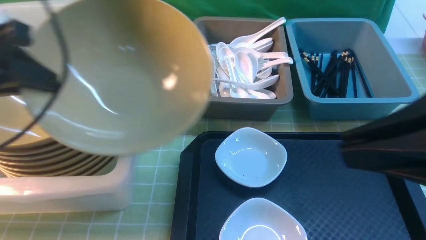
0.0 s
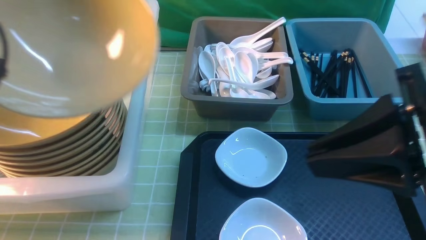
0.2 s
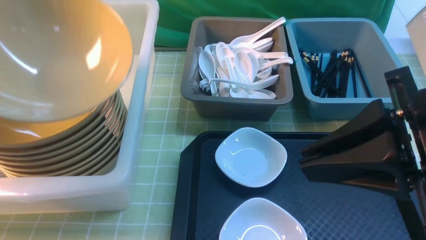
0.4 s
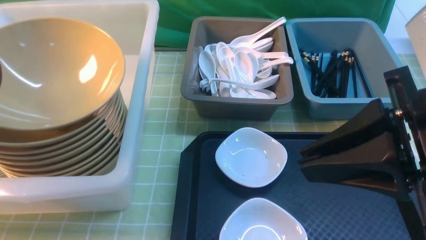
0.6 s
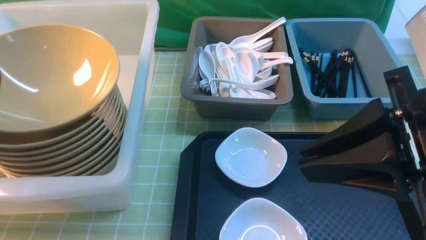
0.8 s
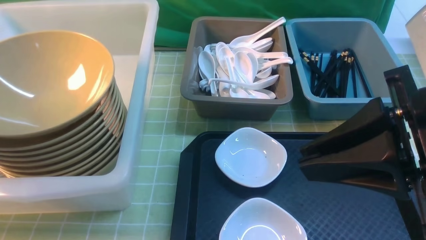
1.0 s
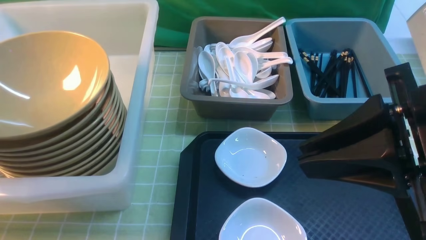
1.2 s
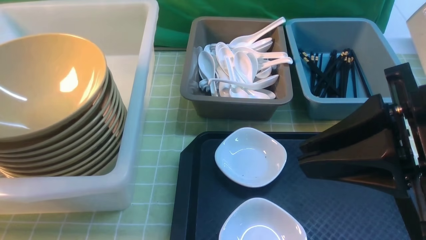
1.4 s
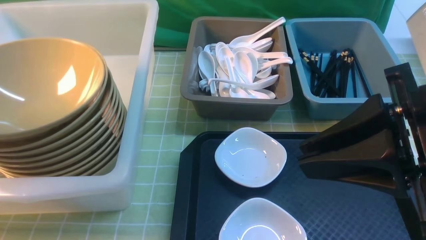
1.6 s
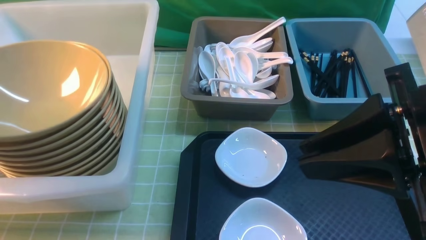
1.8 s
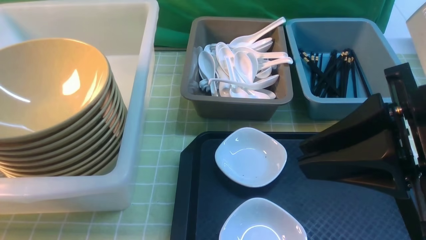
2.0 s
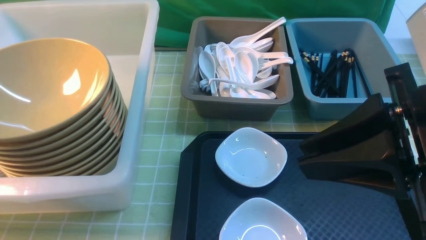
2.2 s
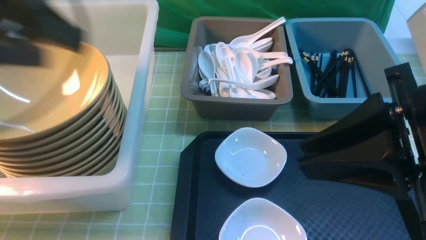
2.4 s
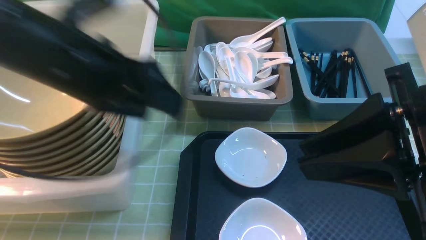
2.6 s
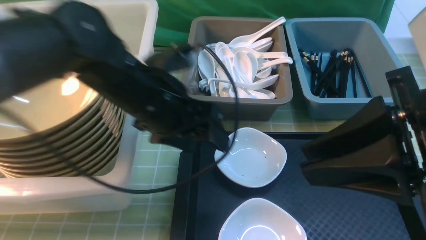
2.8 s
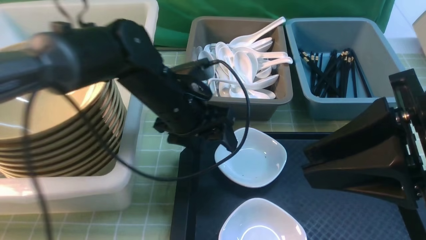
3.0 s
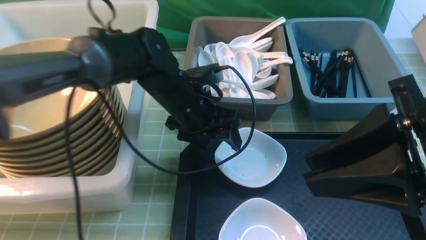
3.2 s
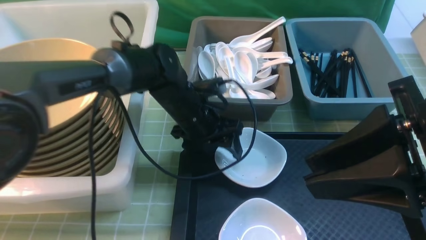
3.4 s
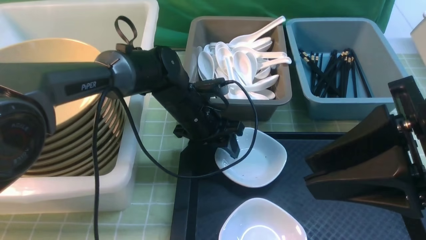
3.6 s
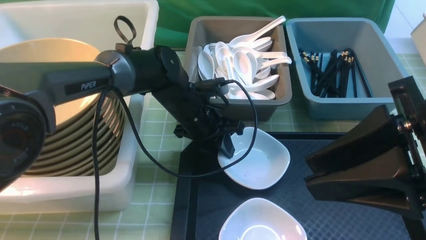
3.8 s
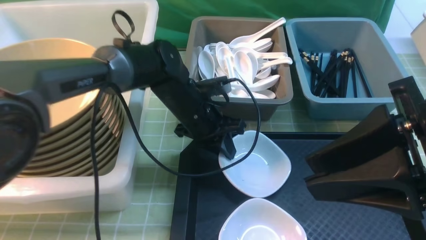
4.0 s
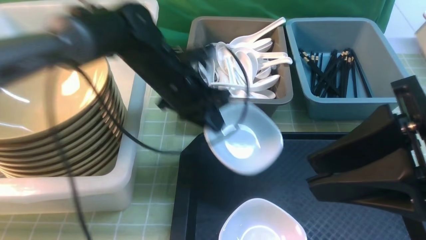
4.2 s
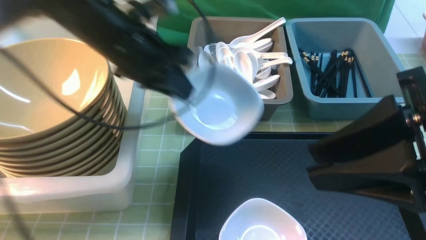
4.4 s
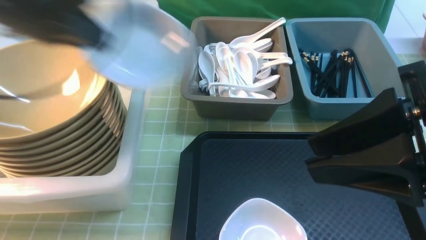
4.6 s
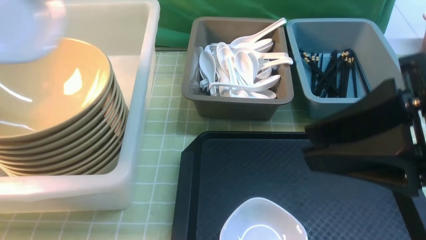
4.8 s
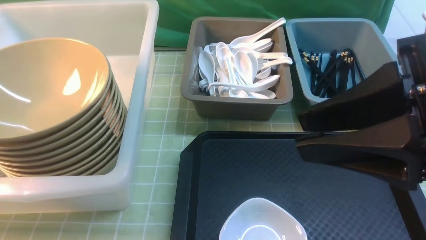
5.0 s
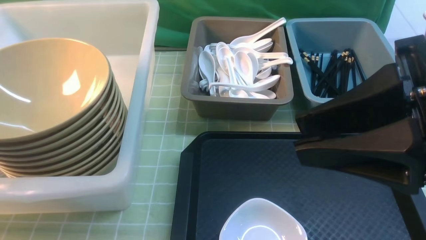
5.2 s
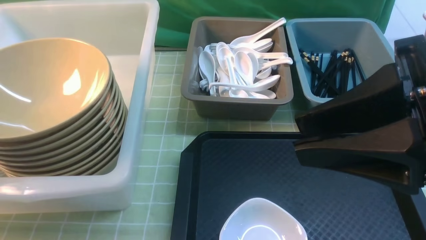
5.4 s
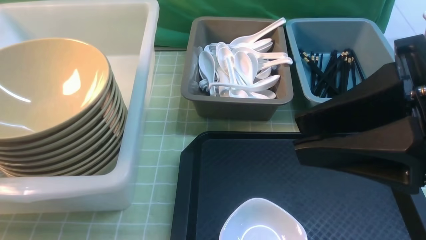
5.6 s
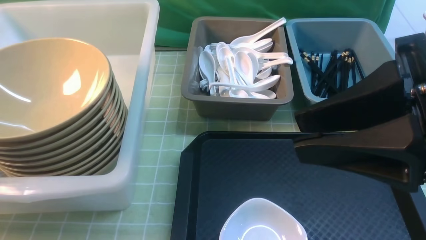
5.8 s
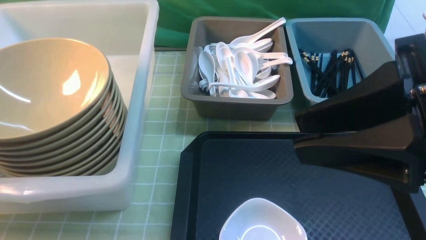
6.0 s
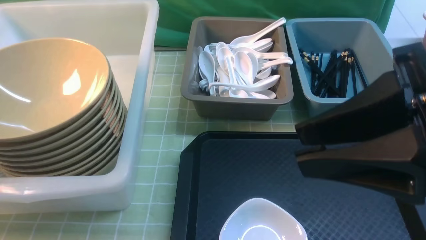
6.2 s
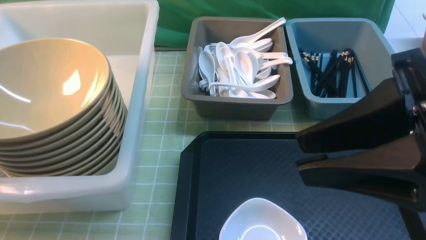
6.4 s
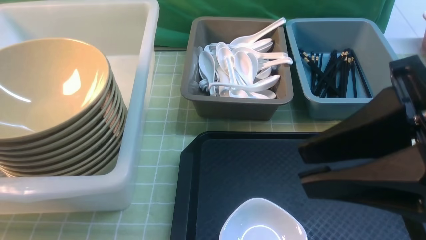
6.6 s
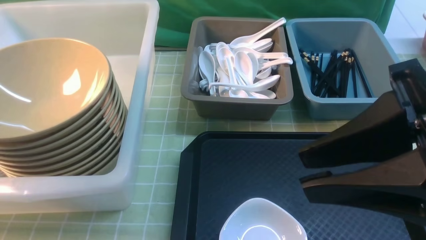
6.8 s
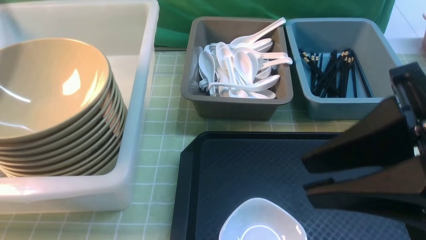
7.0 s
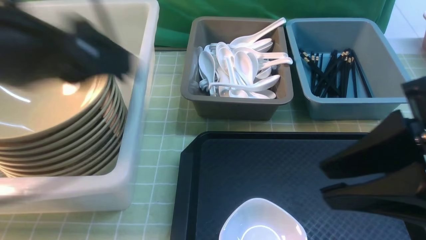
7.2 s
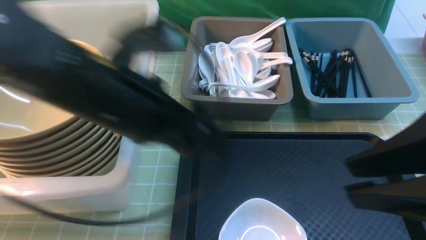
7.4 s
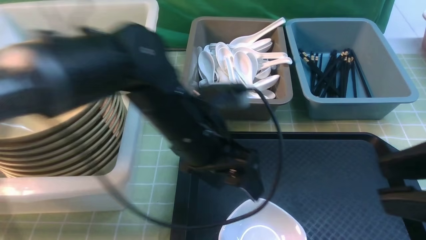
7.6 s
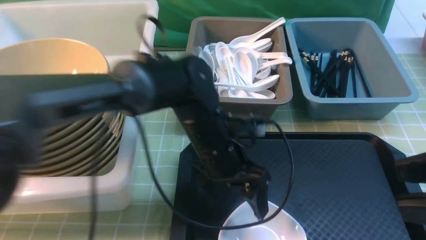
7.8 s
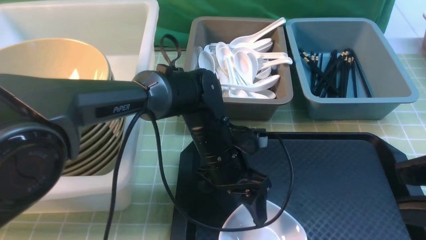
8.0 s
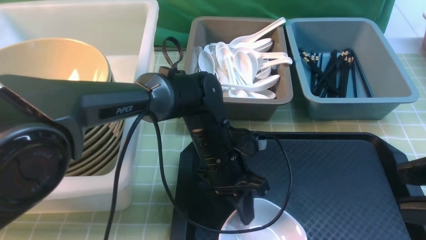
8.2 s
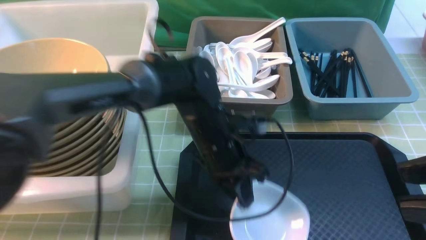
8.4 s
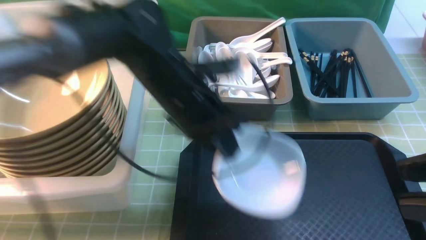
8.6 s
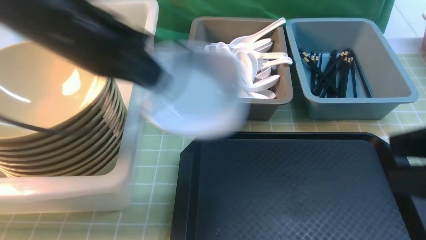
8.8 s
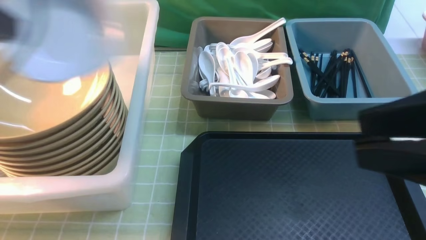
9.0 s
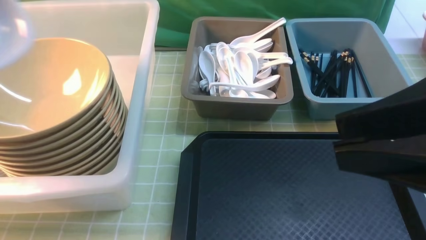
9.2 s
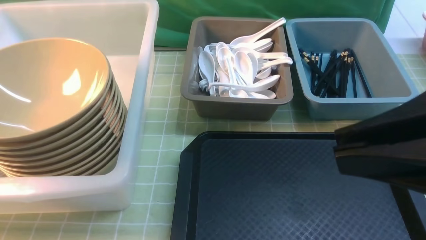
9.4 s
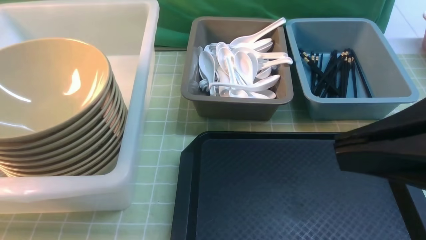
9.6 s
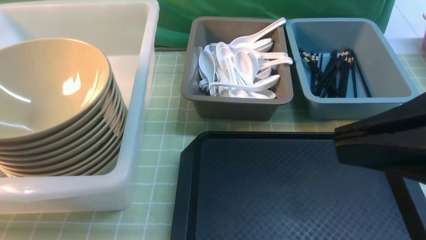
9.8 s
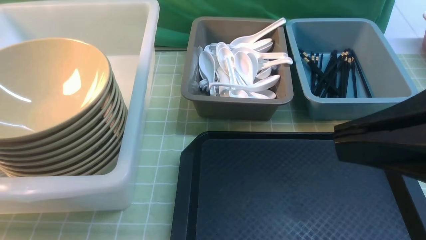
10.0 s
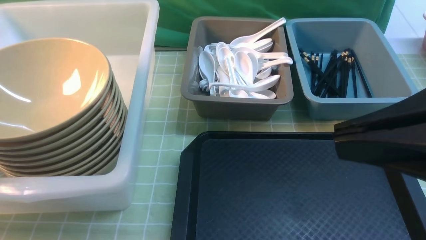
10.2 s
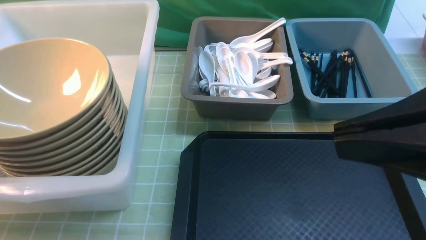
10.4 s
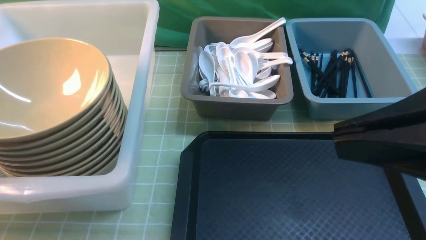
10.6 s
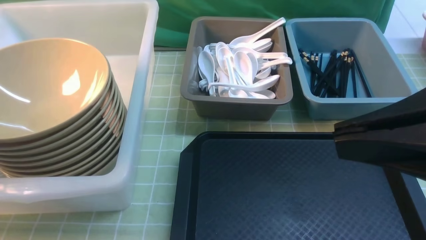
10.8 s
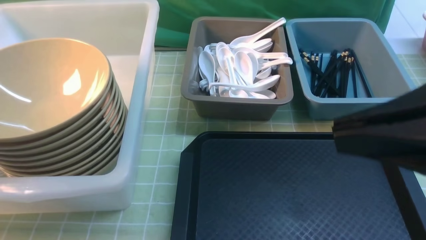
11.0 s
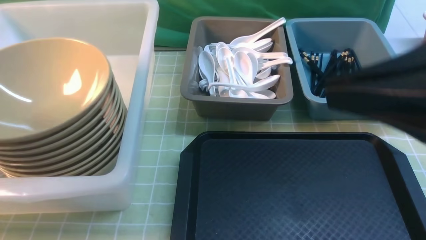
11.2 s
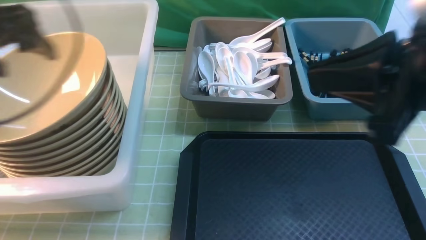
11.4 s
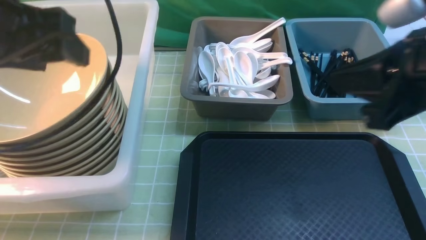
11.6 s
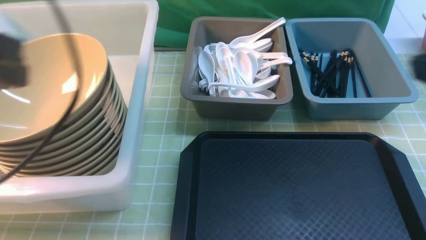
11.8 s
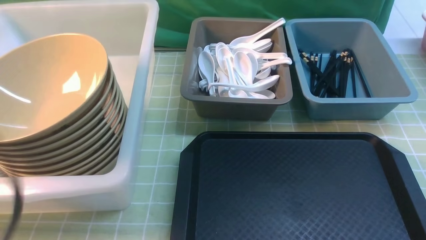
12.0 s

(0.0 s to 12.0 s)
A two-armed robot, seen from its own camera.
Task of the whole recording: on green table put chopsticks spoon bowls plates into blue grey white boxes.
Step, 0.0 s - 2.0 s: use the left arm to put the noodle bowl into the large storage box on the left.
Step, 2.2 s - 4.0 s: use the left arm to grab the plate.
Step, 4.4 s - 6.0 s: use the left arm to put the plate into the large storage box on the left.
Step, 6.4 s - 8.6 s: use the left arm to grab the plate.
Step, 8.8 s - 10.4 s: use the left arm to put the plate into the large storage box on the left.
0.0 s - 1.6 s: The left gripper heads to the left and downward, covering approximately 15 cm, and opens its fingers.
1.6 s - 3.0 s: The left gripper goes about 30 cm to the right.
3.0 s - 4.4 s: The left gripper changes place by about 10 cm, and closes up.
4.4 s - 6.0 s: The left gripper moves to the left, some 35 cm.
6.0 s - 7.6 s: The left gripper heads to the right, covering approximately 40 cm, and opens up.
7.6 s - 9.0 s: The left gripper heads to the left and upward, covering some 20 cm, and closes up.
9.0 s - 10.4 s: The right gripper closes up, while the left gripper heads to the left, covering approximately 20 cm.
10.4 s - 12.0 s: The right gripper is displaced to the right by some 5 cm; the left gripper heads to the right and backward, covering some 25 cm, and opens, then closes again.

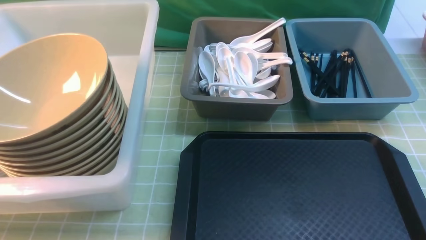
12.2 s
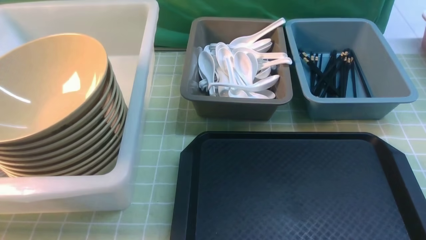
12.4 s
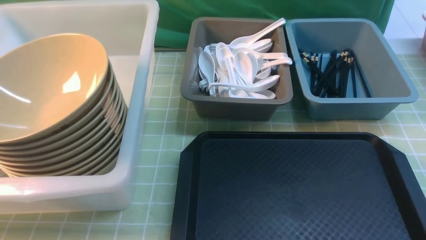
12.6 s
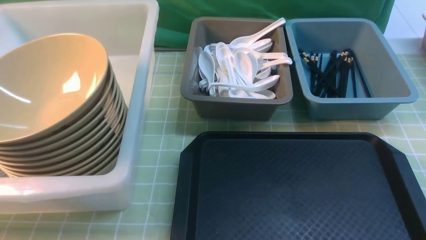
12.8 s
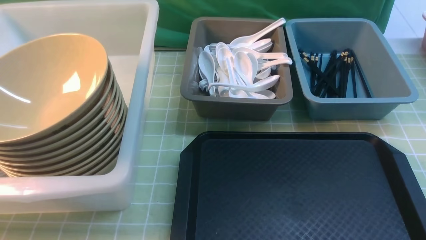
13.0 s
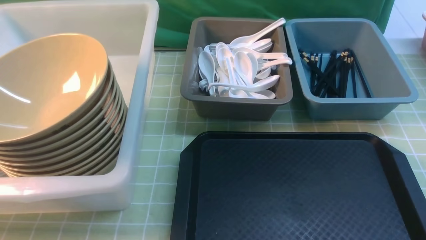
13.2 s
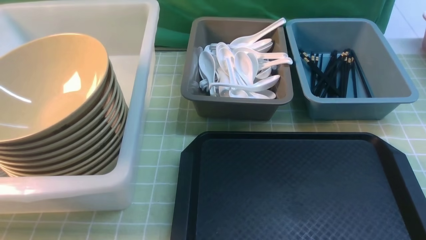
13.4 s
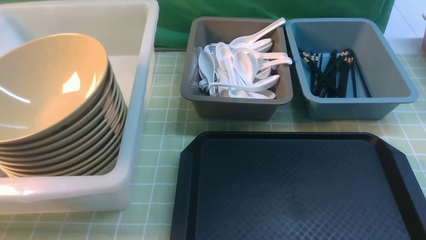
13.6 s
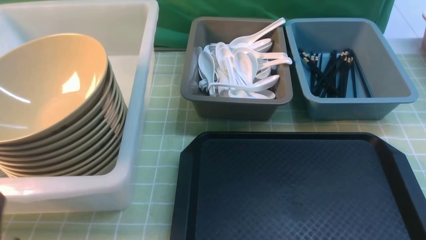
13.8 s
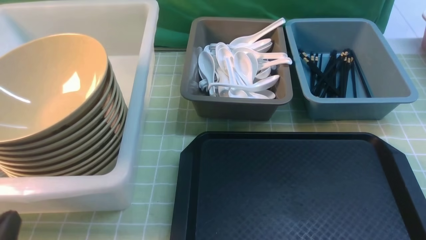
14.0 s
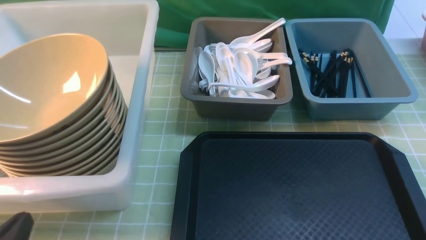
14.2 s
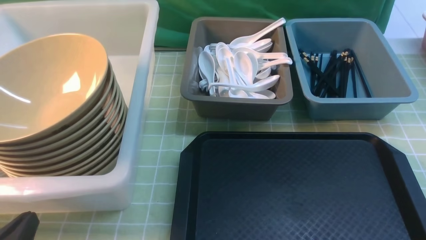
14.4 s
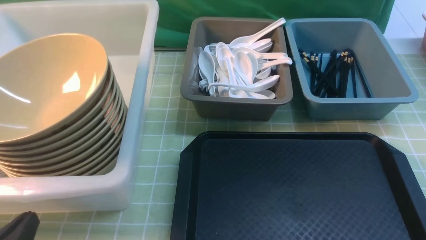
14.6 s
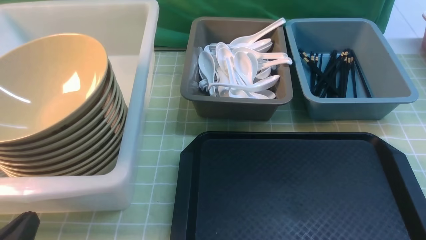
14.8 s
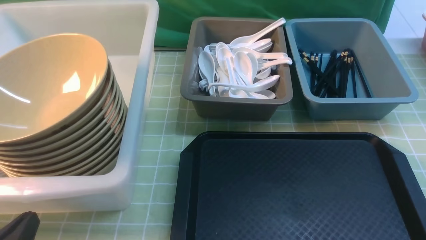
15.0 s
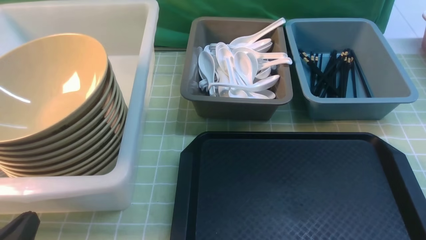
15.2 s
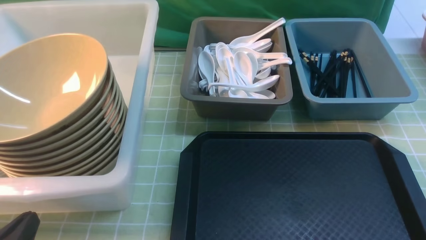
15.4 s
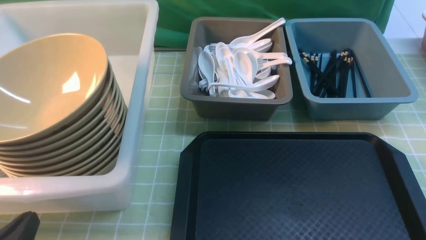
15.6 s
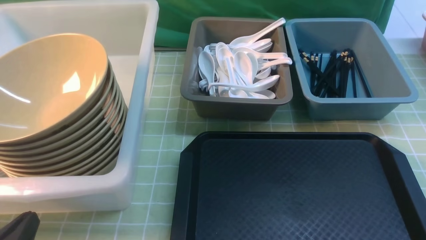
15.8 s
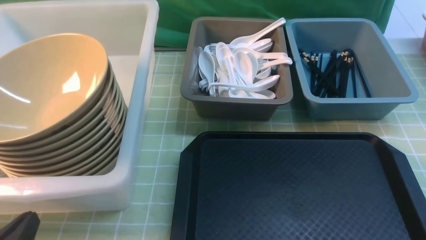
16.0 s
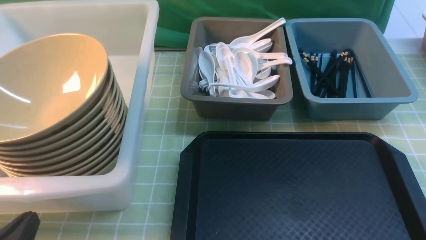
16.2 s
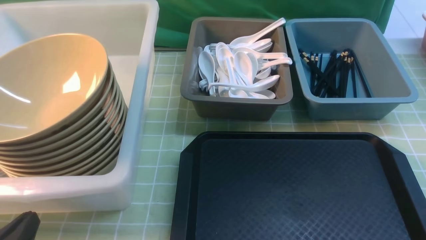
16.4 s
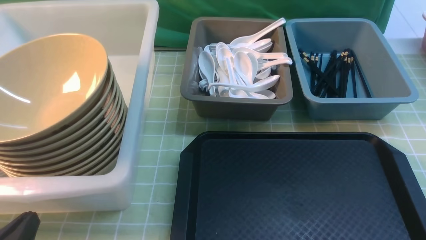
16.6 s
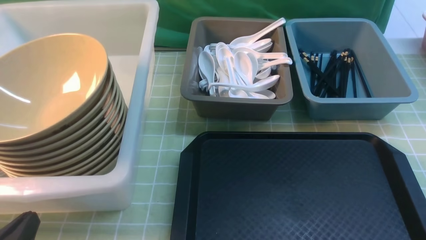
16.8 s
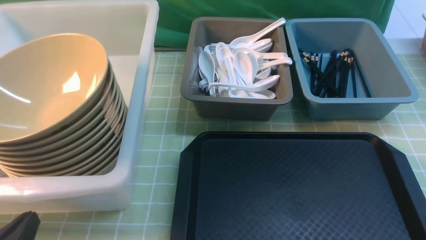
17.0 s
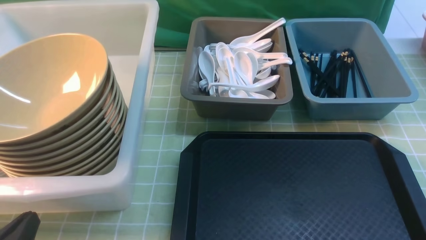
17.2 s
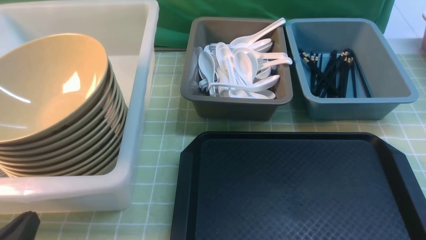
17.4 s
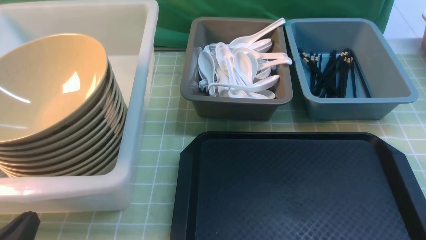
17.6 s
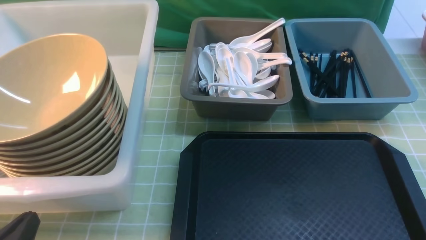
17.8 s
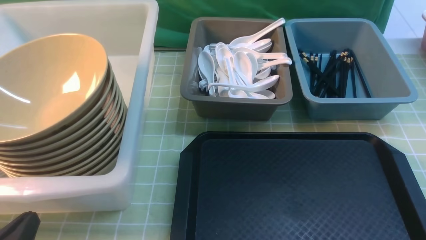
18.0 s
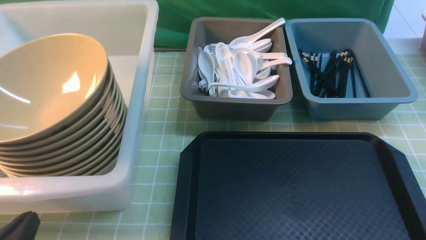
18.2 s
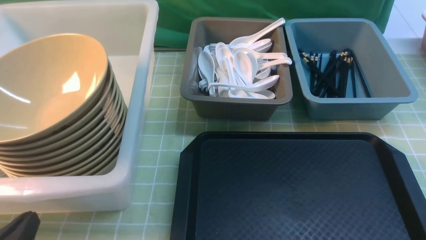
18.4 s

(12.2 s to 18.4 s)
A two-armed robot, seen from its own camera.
Task of the whole recording: on green table put chopsticks spoon bowls plates into blue grey white boxes.
13.8 s - 15.4 s: The left gripper goes approximately 5 cm downward.
16.8 s - 18.4 s: Neither gripper changes place.
